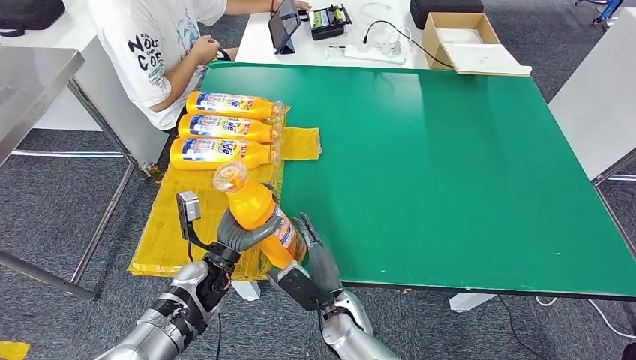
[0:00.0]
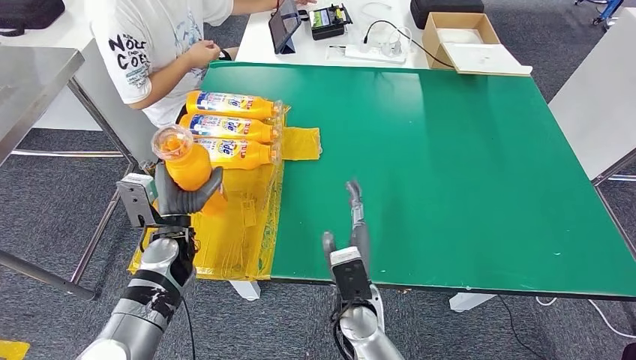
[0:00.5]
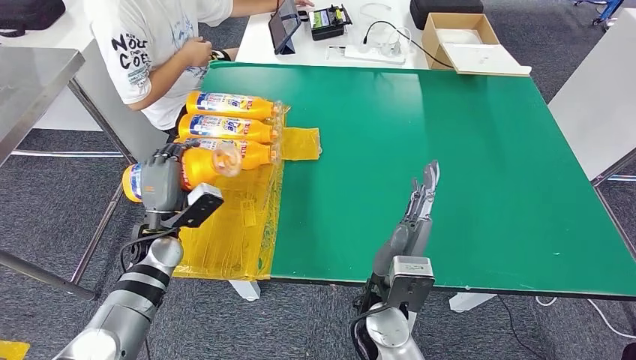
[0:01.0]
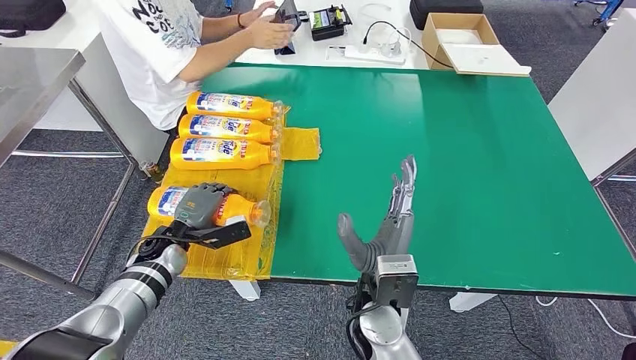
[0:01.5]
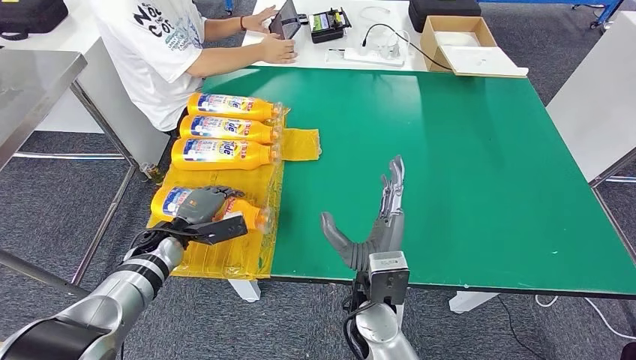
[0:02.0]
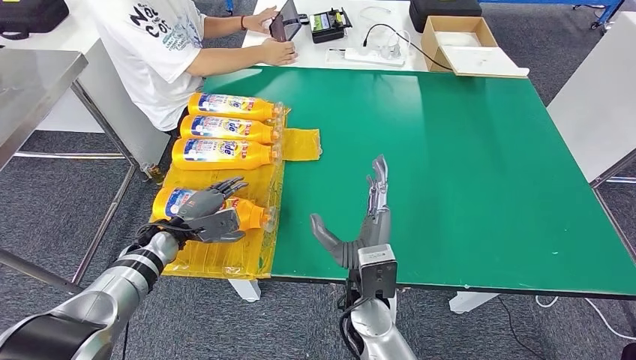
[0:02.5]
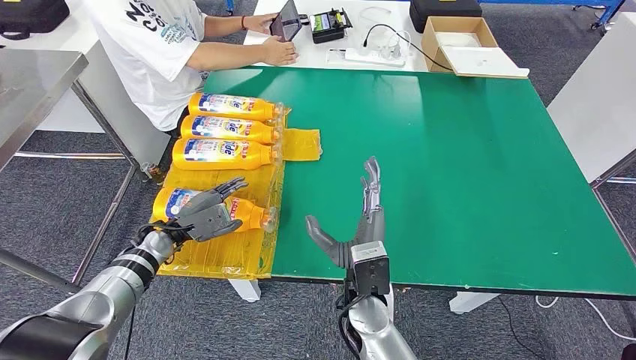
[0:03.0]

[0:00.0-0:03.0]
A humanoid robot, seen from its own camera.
Step, 0:00.0 to 0:03.0: Flip the bottle to face forward.
0:00.0 to 0:01.5: The left hand heads to the left and forward, covering roughly 10 cm. Meanwhile the right hand travels upward by about 10 cm.

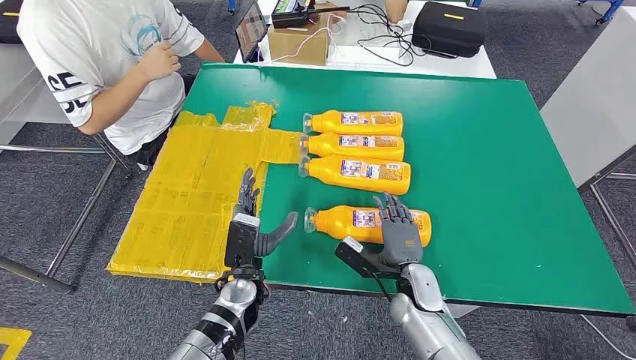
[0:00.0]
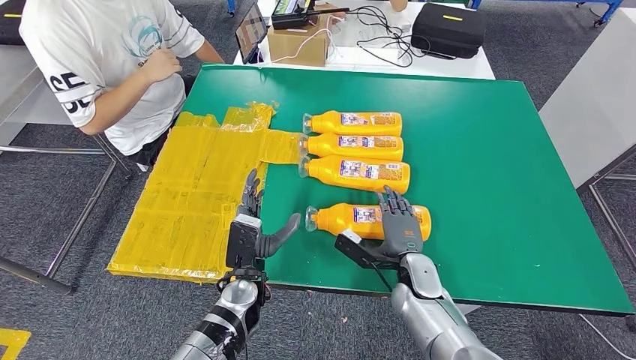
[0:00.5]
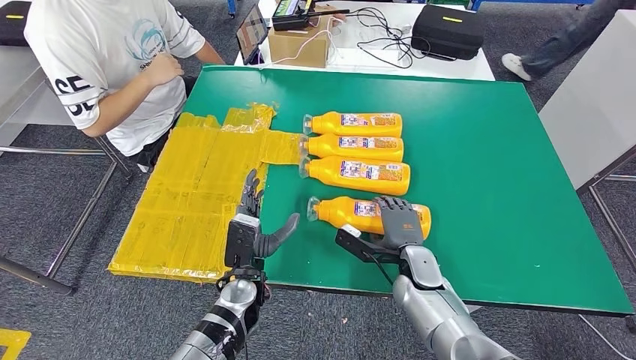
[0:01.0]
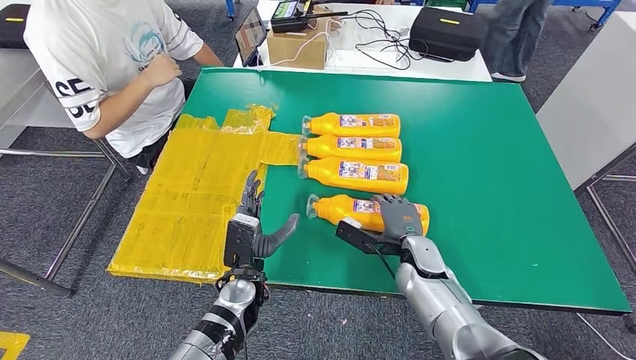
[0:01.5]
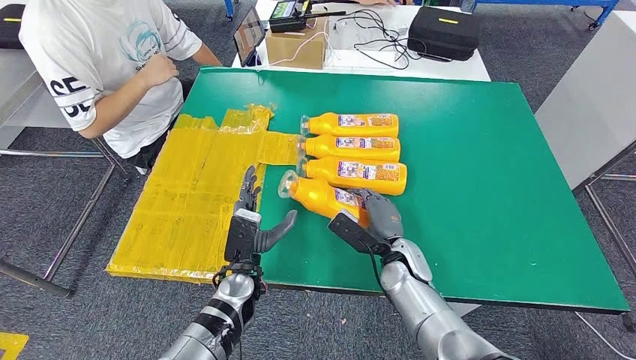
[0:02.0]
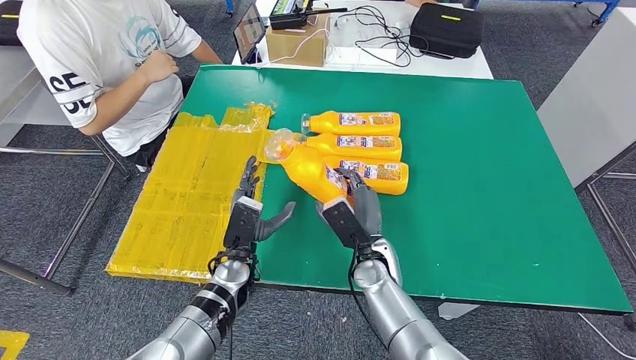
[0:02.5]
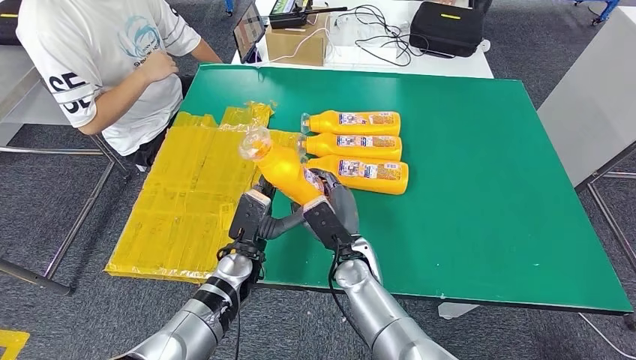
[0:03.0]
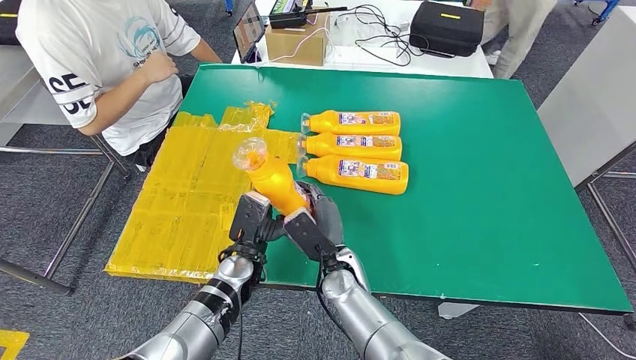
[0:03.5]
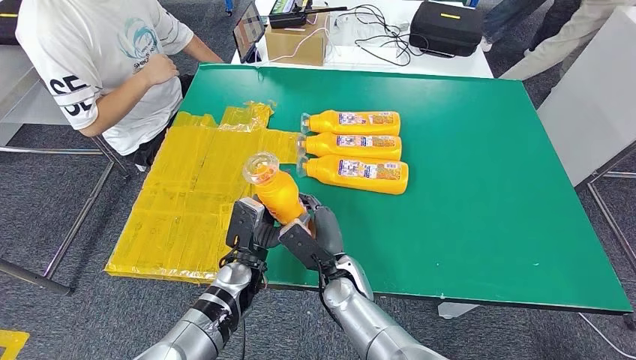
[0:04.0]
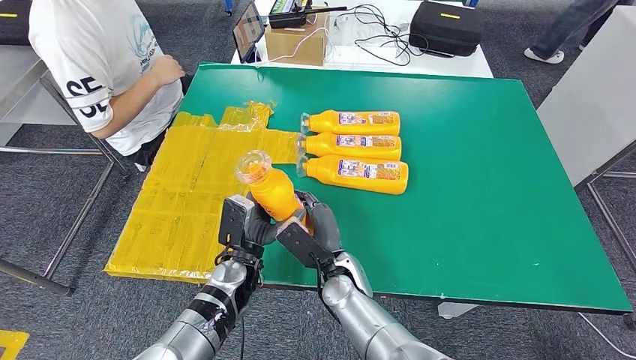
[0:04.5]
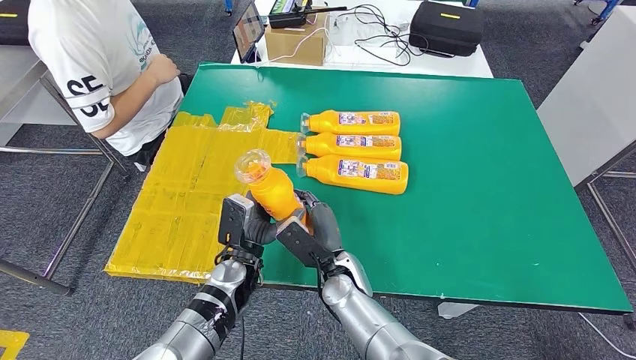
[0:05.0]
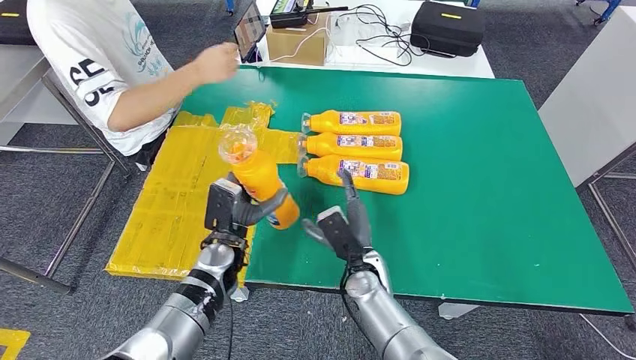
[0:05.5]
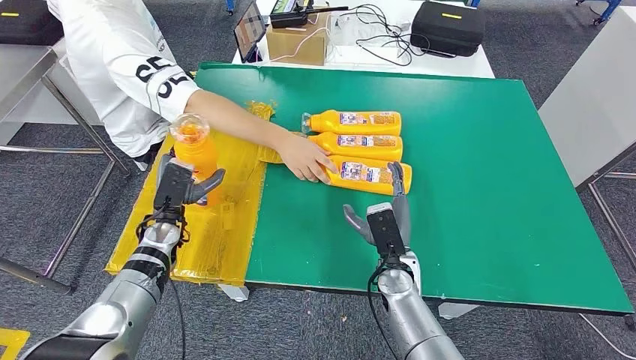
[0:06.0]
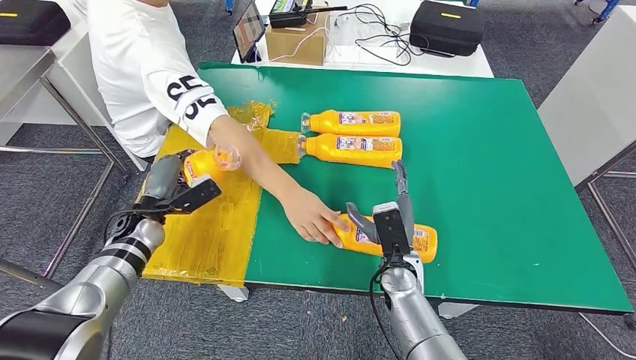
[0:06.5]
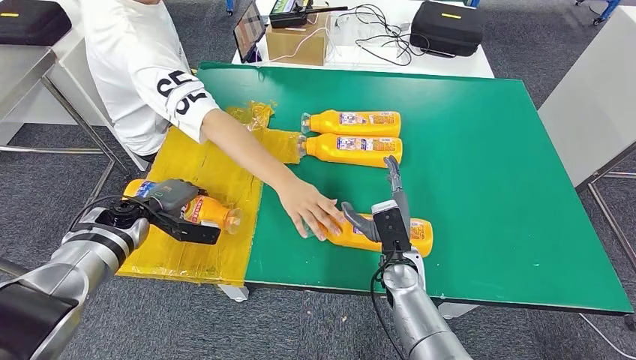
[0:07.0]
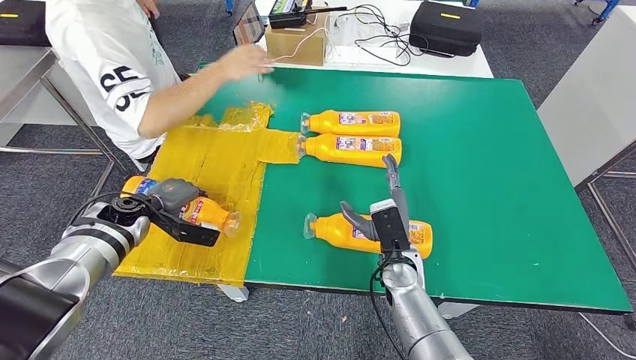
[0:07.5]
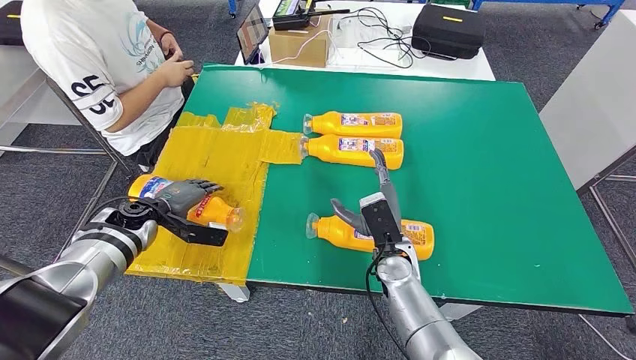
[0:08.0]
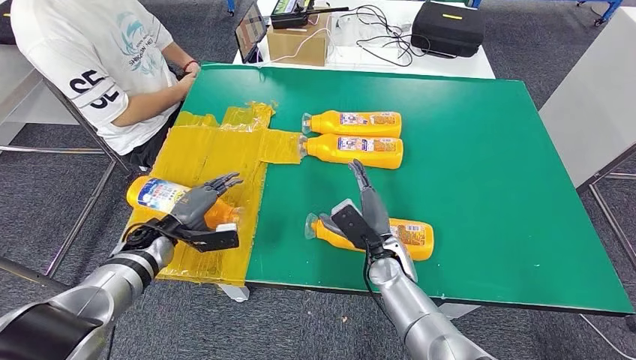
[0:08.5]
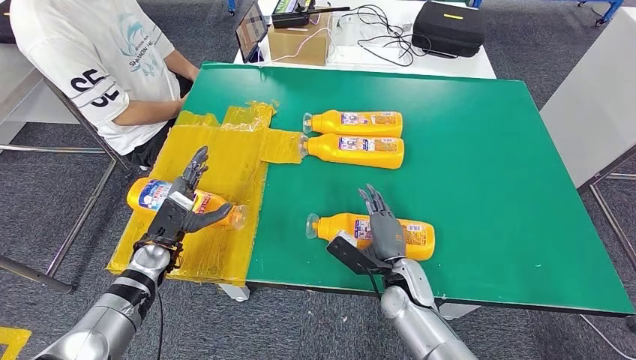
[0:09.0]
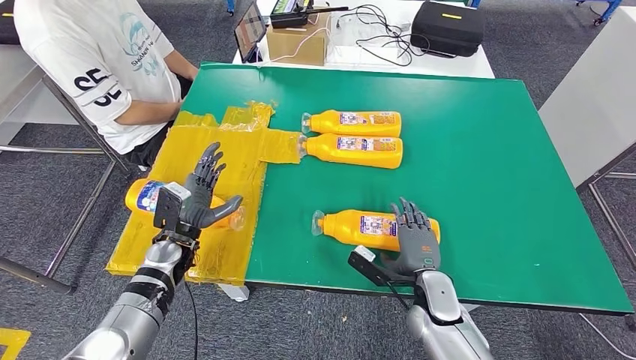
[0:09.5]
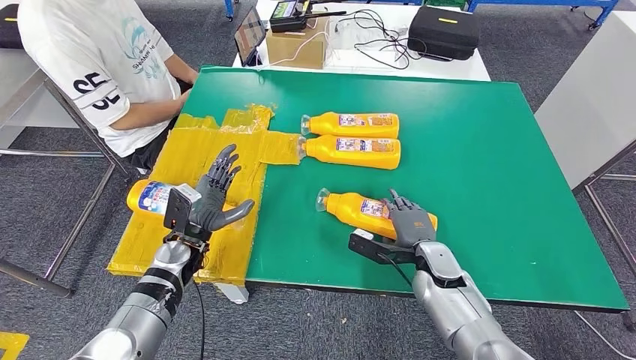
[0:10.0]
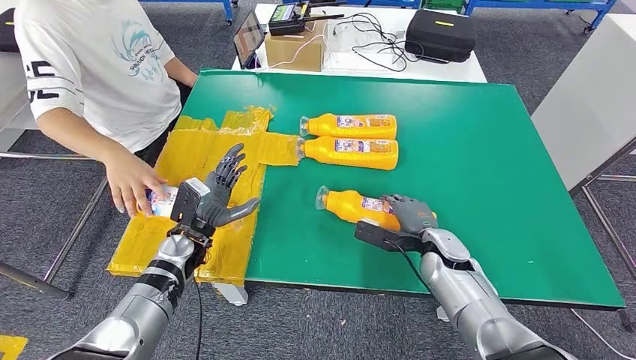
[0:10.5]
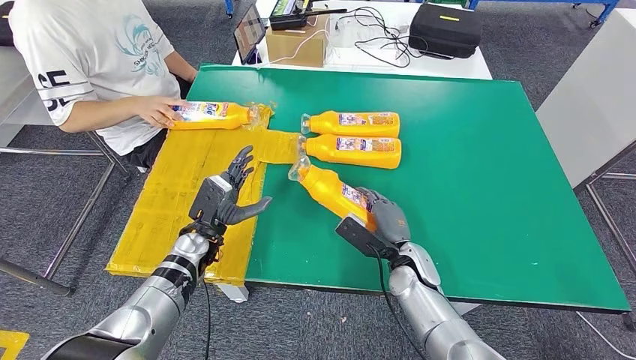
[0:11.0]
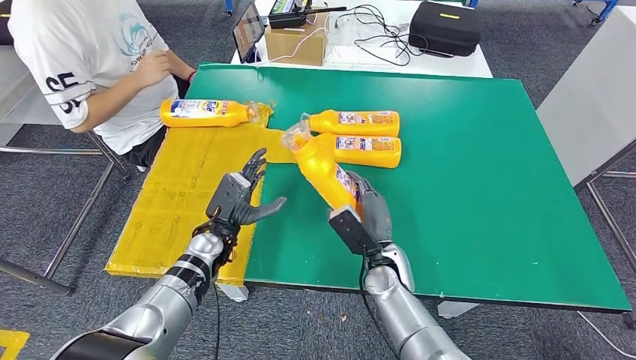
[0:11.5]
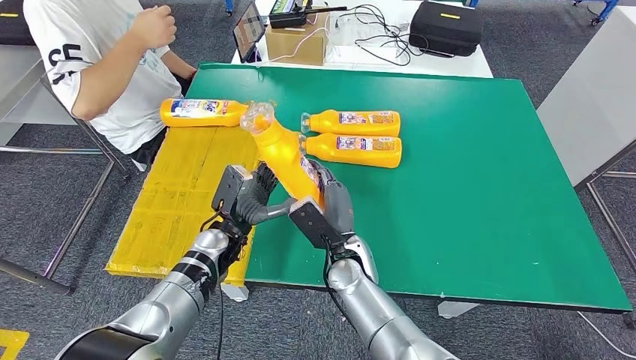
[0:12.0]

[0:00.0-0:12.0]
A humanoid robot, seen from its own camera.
Step, 0:00.0 to 0:02.0: Take the bottle from the table.
Step, 0:02.5 to 0:08.0: Flip the bottle to face forward.
Step, 0:10.0 to 0:11.5: Pick up the bottle from the table.

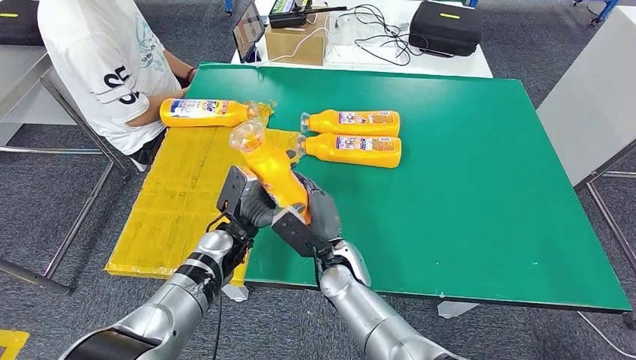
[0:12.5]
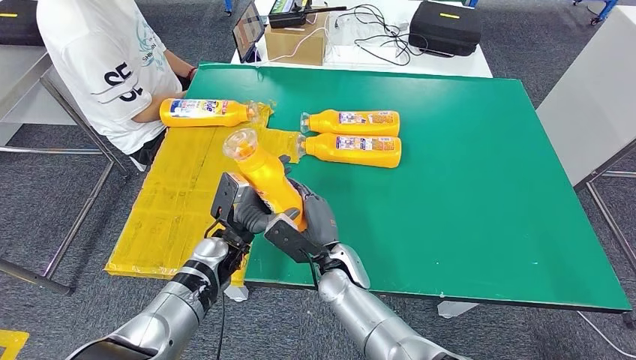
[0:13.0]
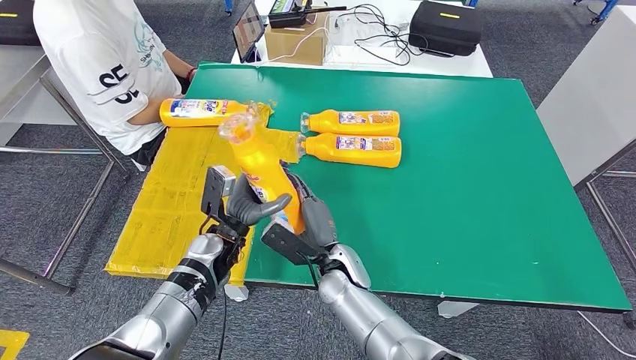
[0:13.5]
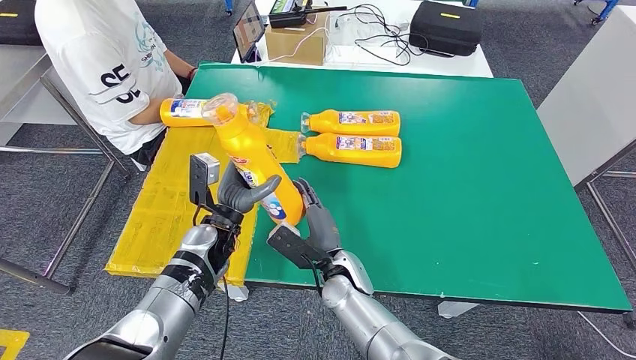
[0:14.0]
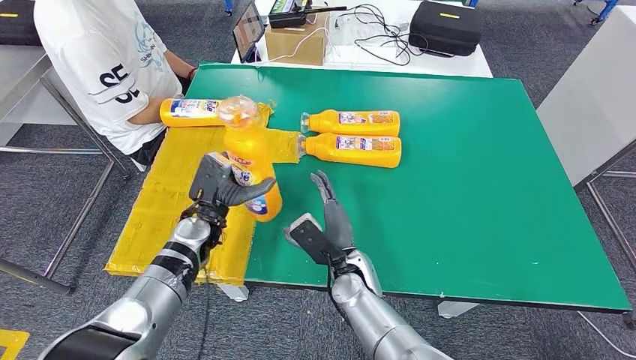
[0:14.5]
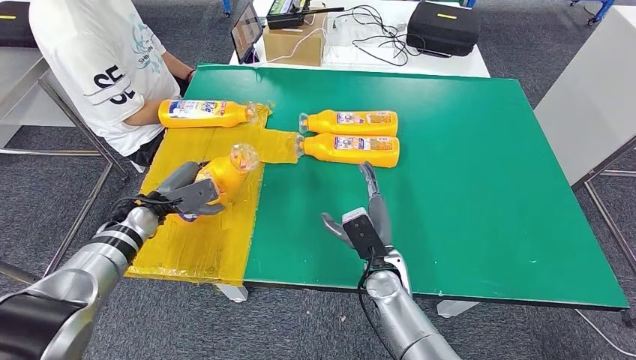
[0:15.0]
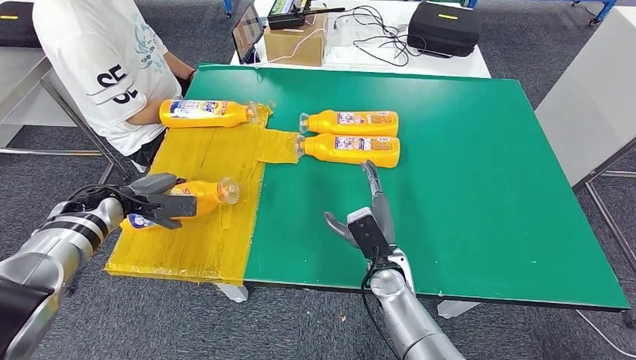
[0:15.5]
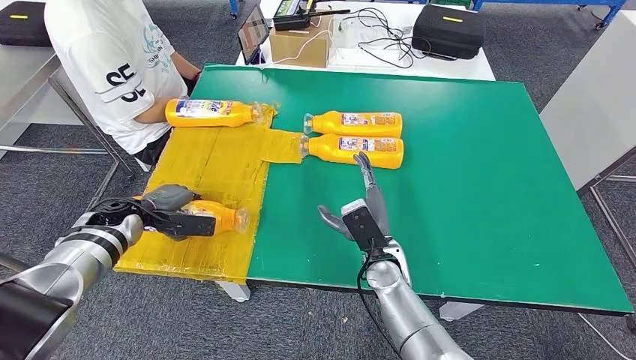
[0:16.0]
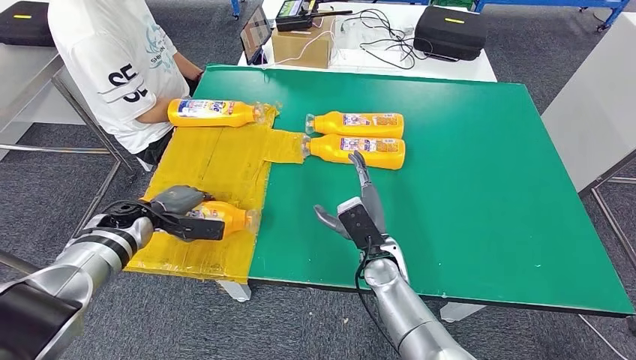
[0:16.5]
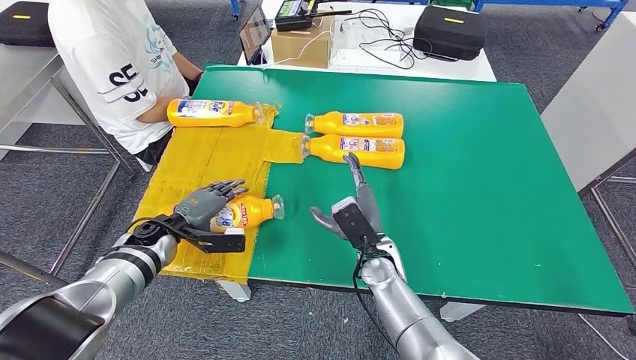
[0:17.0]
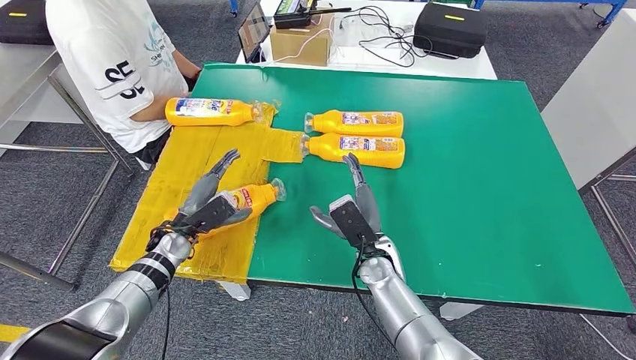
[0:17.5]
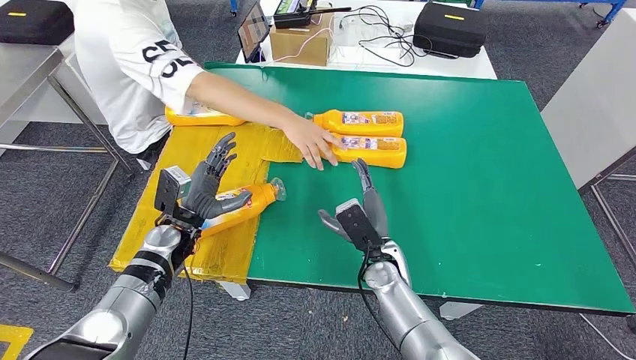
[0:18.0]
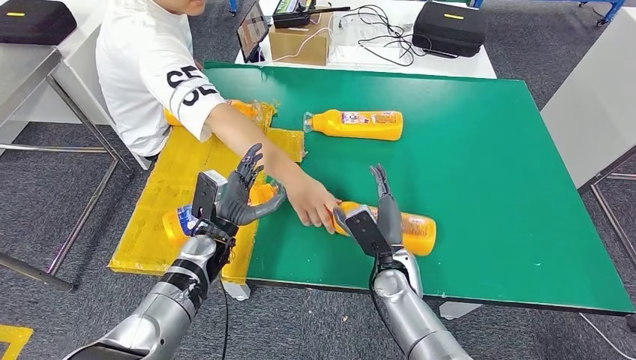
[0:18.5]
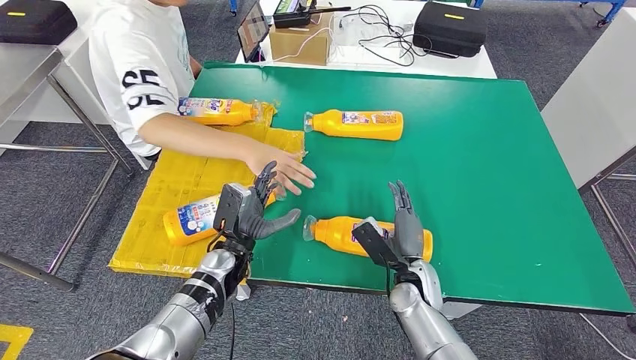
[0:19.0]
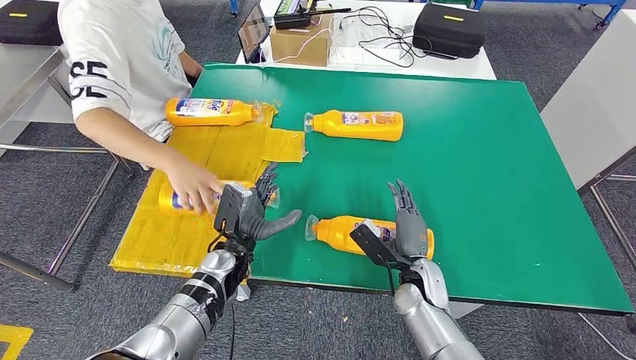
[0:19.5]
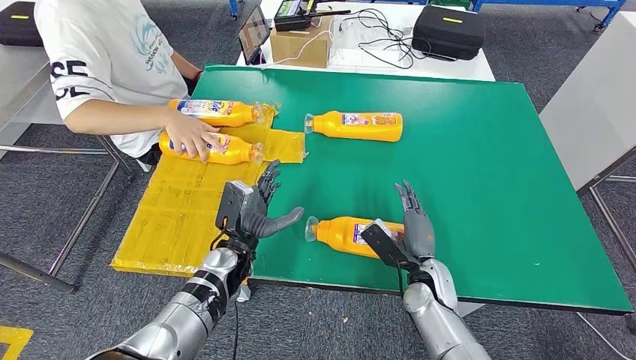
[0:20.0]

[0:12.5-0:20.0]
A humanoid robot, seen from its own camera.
Step, 0:12.5 to 0:17.5: Flip the bottle to face forward.
0:12.5 to 0:14.5: The left hand is displaced to the left by approximately 5 cm.
